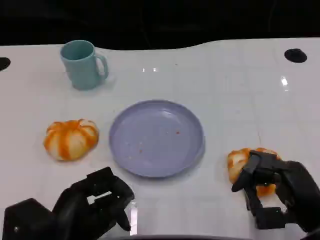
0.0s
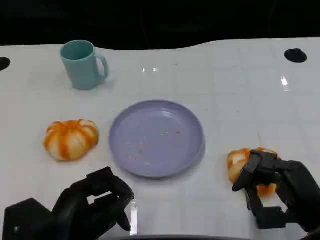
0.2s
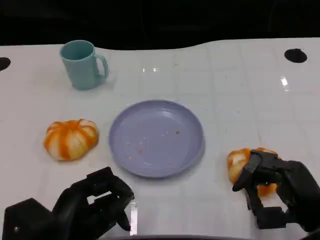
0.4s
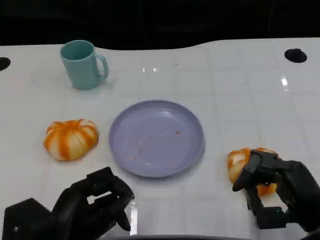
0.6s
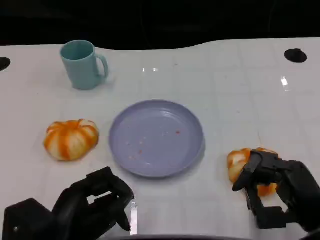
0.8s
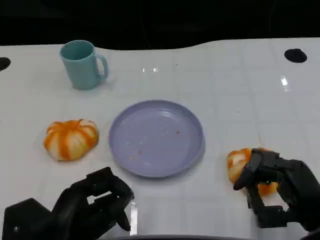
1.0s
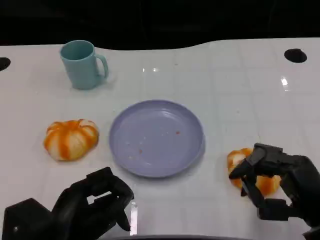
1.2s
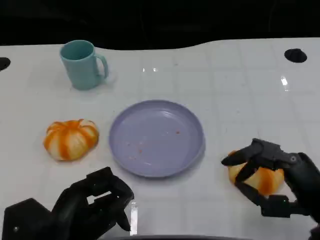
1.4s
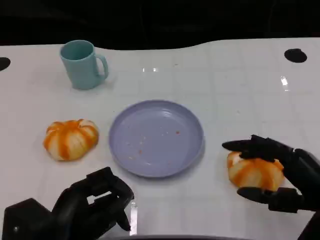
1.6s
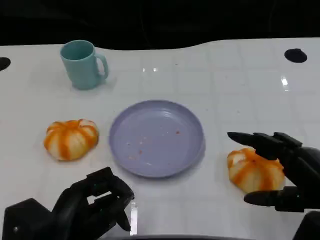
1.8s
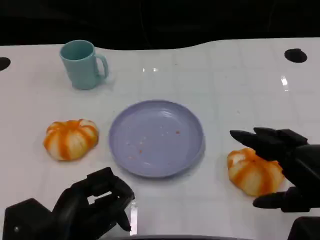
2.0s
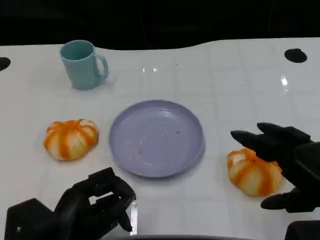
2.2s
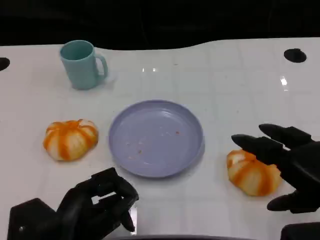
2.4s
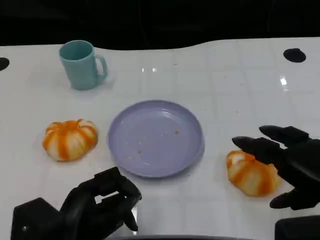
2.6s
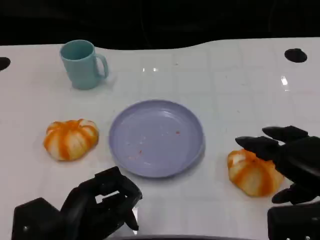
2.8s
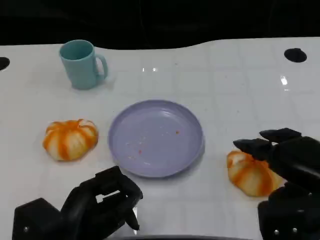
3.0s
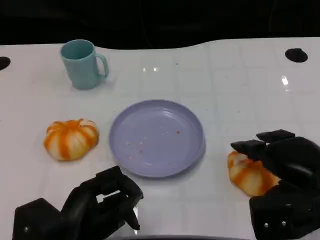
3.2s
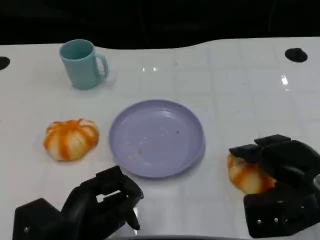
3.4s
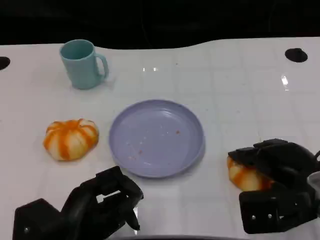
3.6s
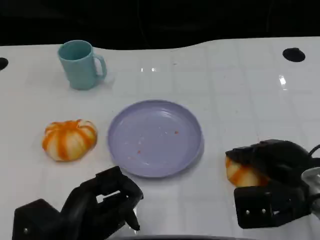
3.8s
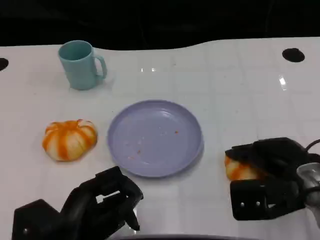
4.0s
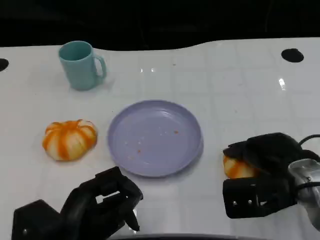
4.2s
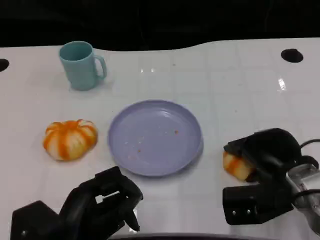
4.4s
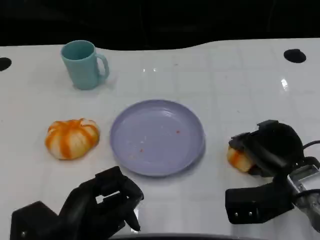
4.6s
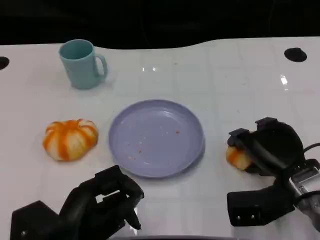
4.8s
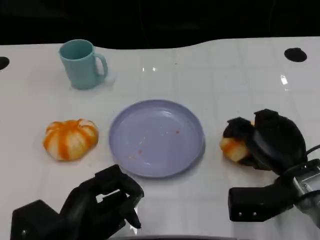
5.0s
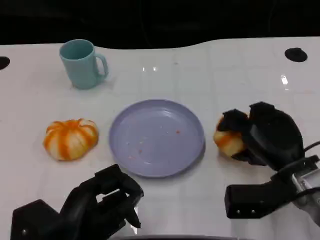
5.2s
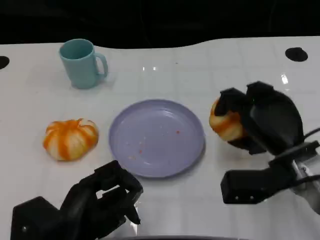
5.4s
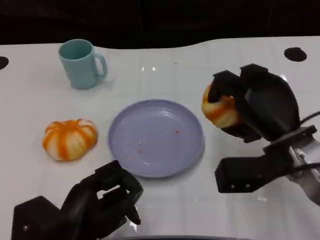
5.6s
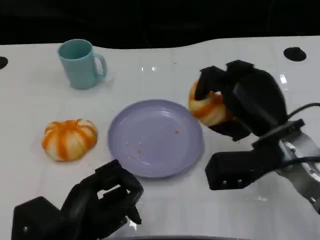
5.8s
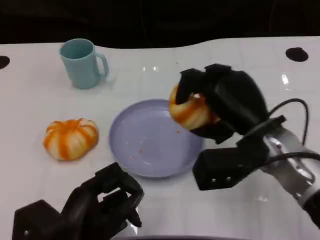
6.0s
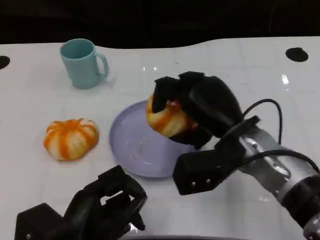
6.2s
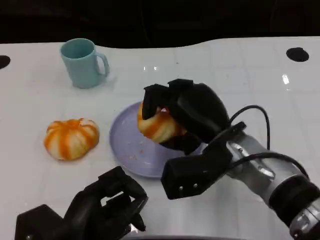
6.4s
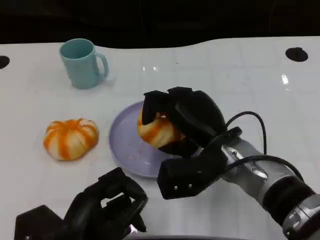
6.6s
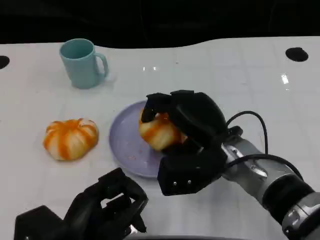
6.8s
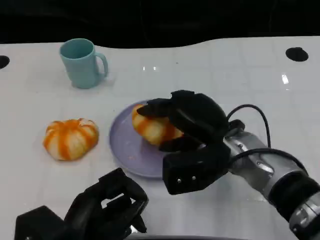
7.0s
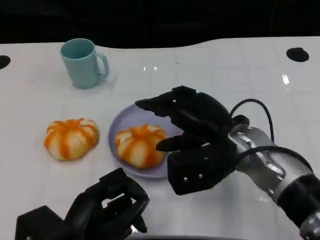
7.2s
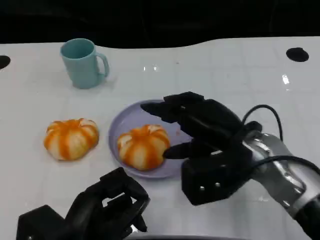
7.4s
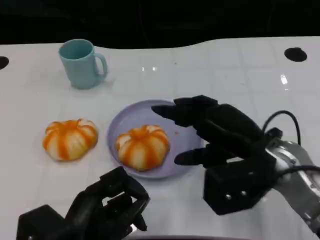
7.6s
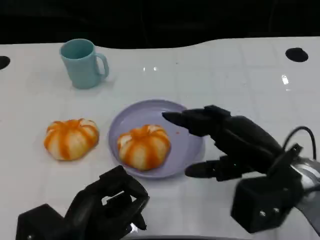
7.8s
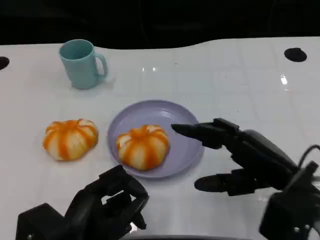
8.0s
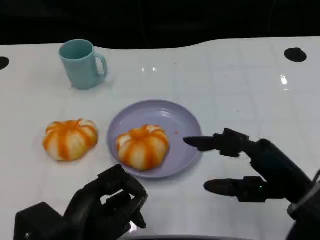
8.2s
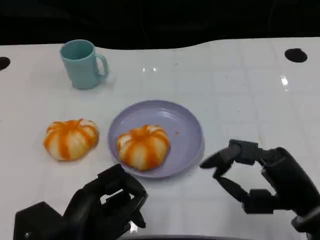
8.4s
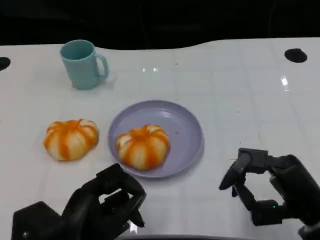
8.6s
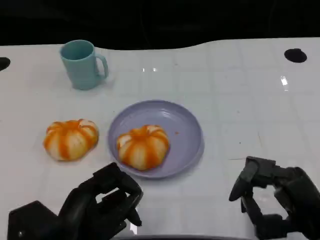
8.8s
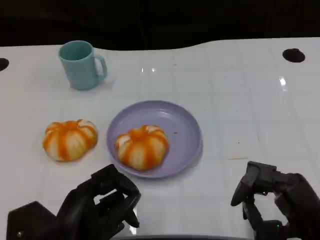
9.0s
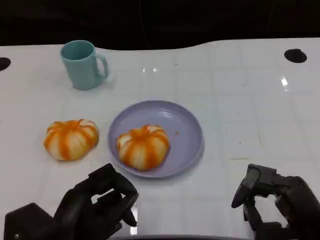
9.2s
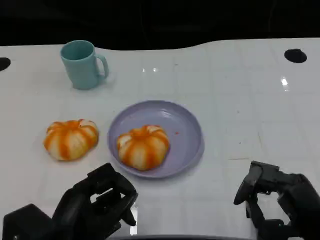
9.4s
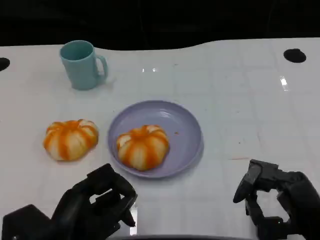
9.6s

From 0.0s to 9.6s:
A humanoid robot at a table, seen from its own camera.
Task of the whole recording: Grasp the bread from the table and place it into the plate.
From 0.0s to 1.6s: The right hand ends up roughly 5 cm from where it was.
From 1.6s to 3.2s: The right hand moves roughly 5 cm.
From 3.2s to 4.8s: The right hand heads downward, covering approximately 5 cm.
From 4.8s to 6.4s: The right hand travels to the left and upward by some 10 cm.
From 6.4s to 8.0s: The right hand is displaced to the right and backward by roughly 10 cm.
From 8.0s to 9.6s: The right hand heads backward, covering roughly 5 cm.

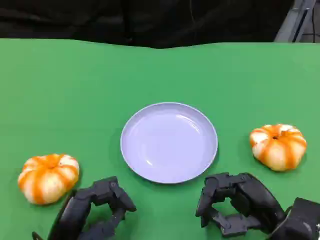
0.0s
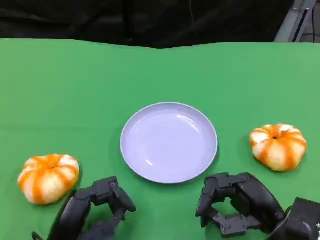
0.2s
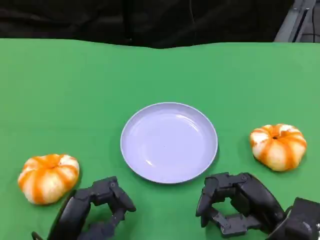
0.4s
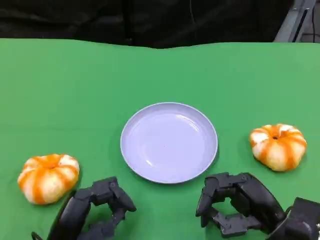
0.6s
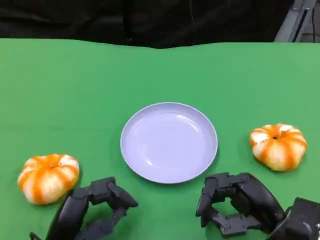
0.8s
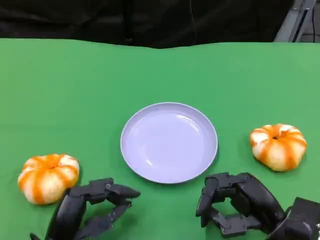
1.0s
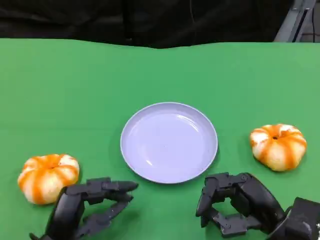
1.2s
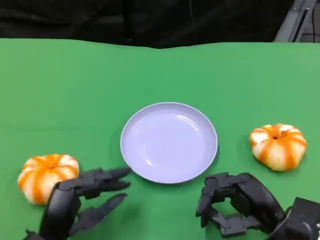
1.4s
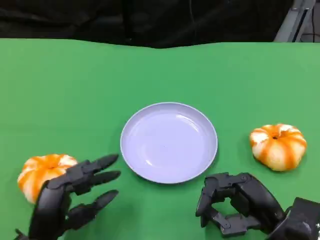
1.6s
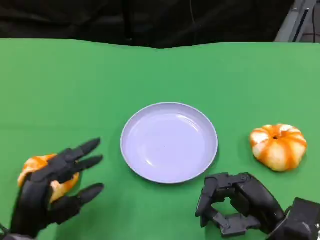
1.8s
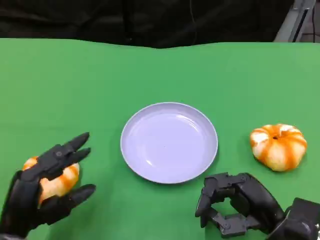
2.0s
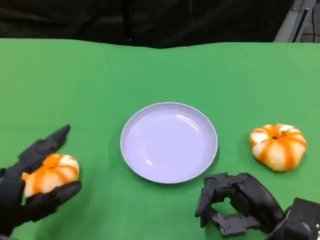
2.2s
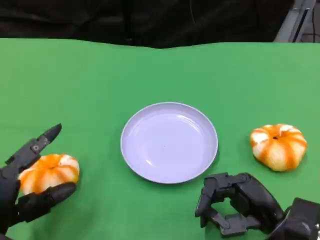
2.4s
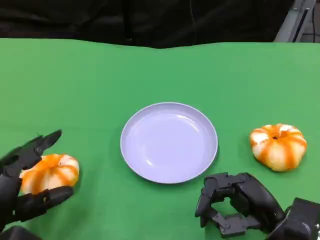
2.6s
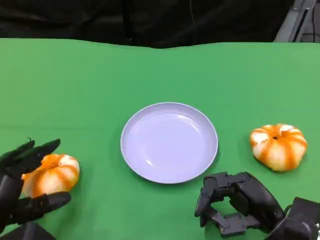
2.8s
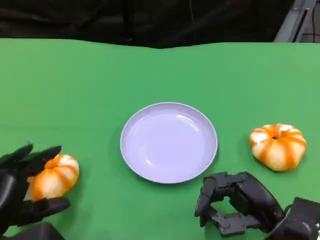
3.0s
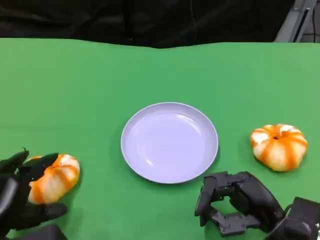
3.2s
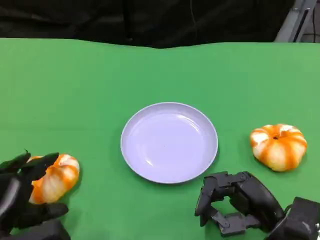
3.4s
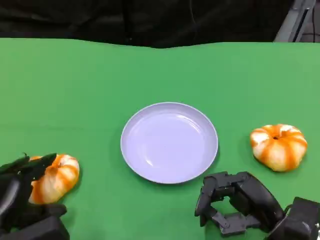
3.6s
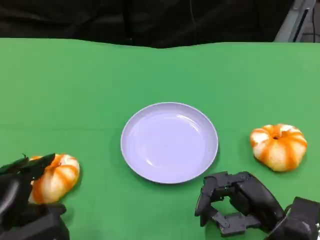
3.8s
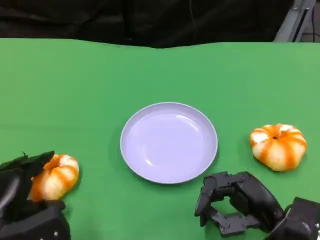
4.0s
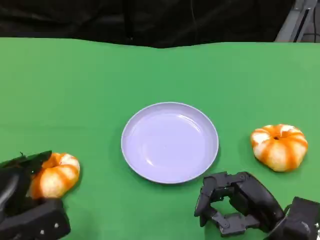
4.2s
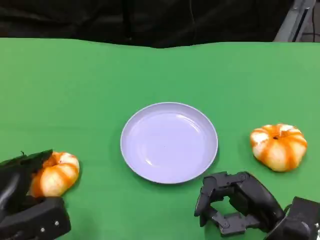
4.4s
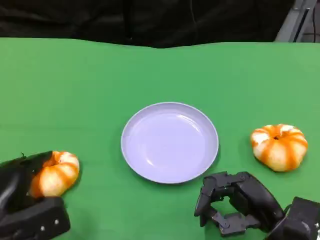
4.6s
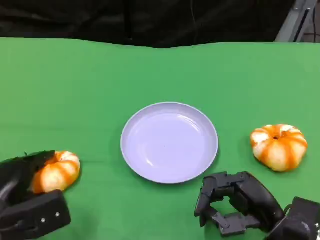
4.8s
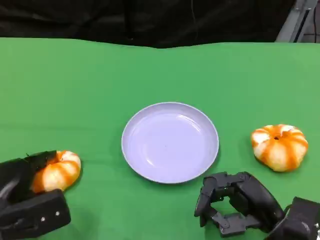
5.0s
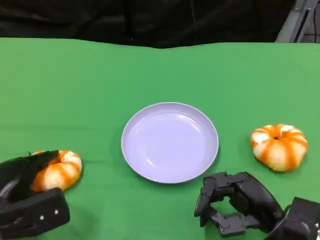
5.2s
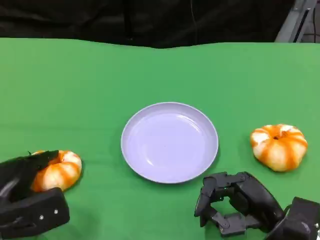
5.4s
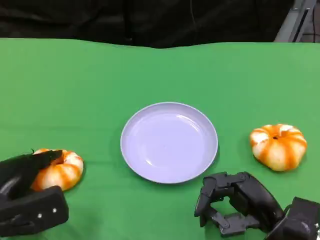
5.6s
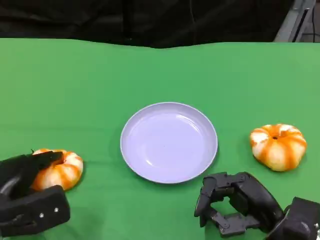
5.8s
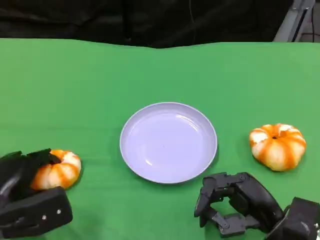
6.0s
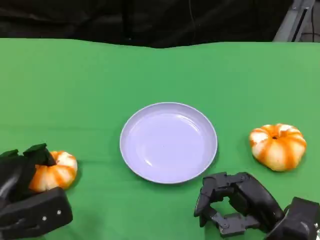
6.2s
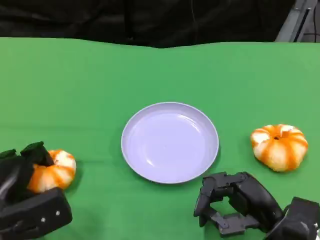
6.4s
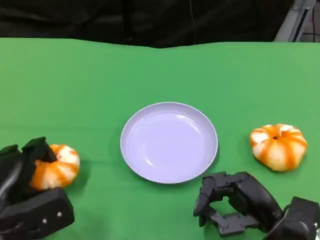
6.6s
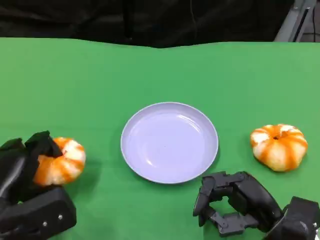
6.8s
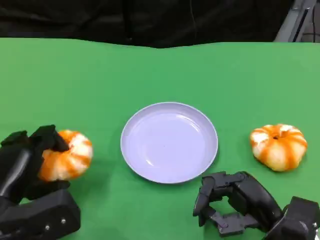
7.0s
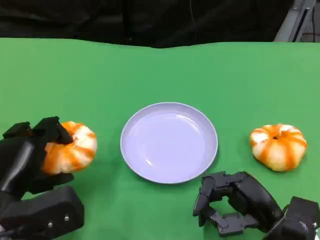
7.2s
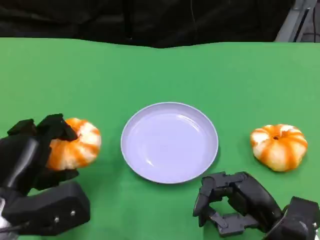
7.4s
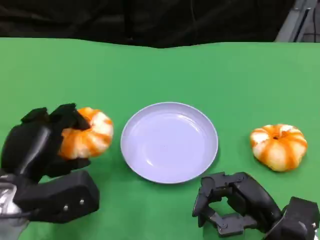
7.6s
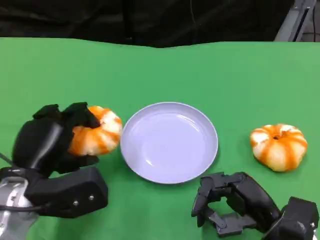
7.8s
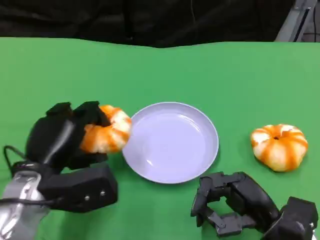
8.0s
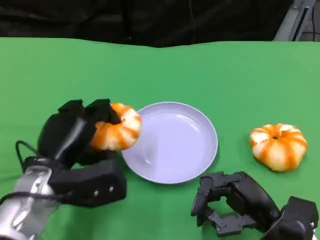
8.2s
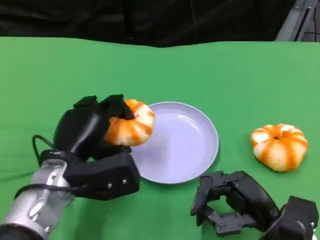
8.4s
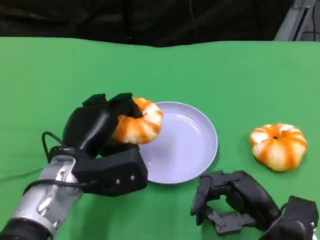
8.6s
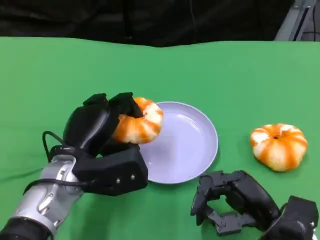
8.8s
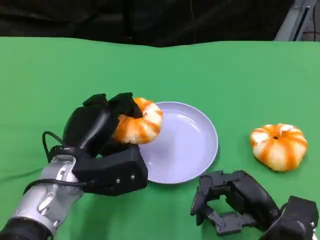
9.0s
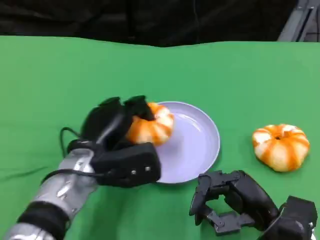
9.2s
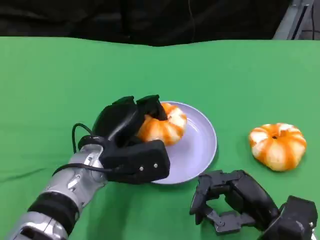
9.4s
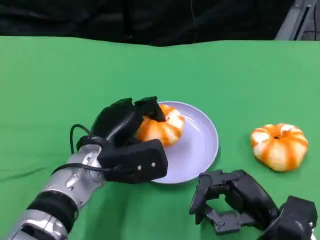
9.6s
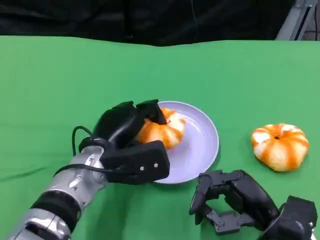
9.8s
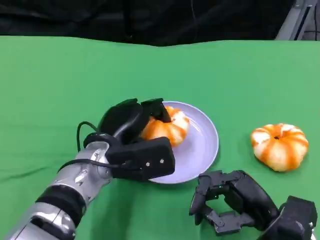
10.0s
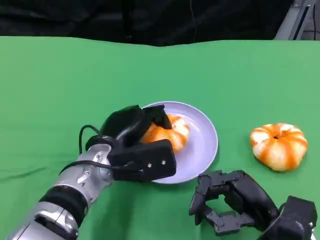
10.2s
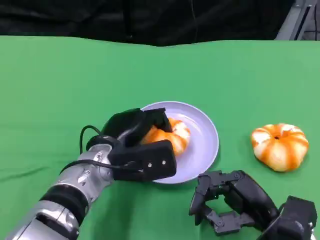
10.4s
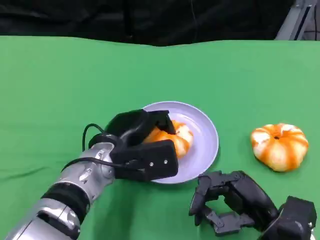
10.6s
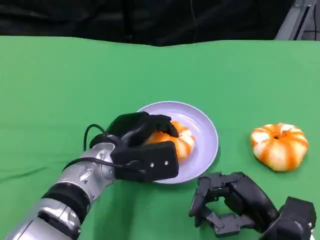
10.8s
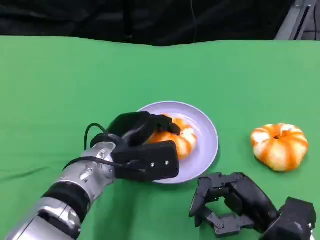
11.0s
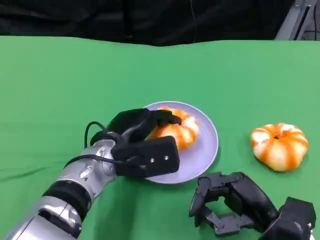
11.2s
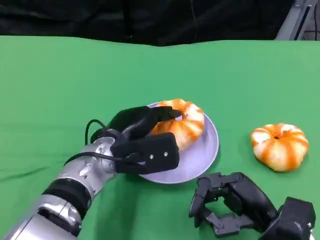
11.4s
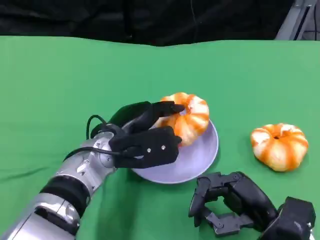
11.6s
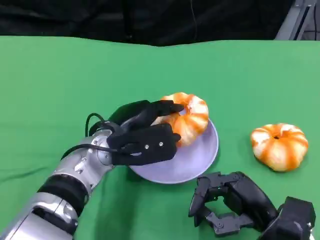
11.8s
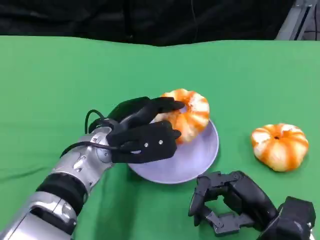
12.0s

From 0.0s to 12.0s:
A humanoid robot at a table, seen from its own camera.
Task of the whole recording: Grasp the bread from the table and place it into the plate.
From 0.0s to 1.6s: There are only small adjustments of the hands.
From 1.6s to 3.0s: The left hand is displaced to the left by some 5 cm.
From 3.0s to 4.4s: The hands make only small movements.
From 4.4s to 6.0s: The hands move only a little.
From 6.0s to 7.6s: The left hand is displaced upward by about 5 cm.
From 7.6s to 9.0s: The left hand moves to the right, roughly 5 cm.
From 9.0s to 10.4s: The left hand ends up roughly 5 cm from where it was.
From 10.4s to 12.0s: The hands make only small movements.

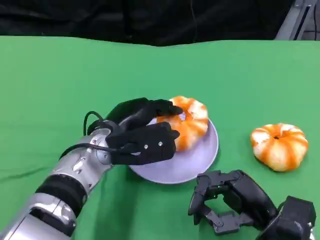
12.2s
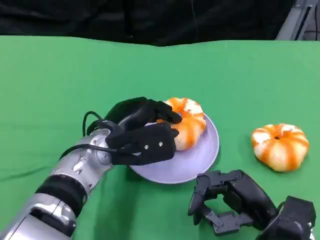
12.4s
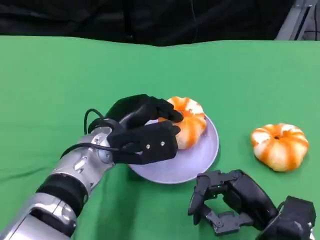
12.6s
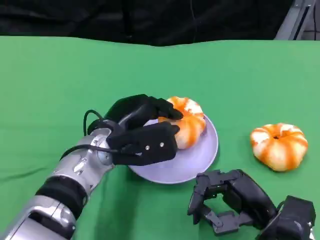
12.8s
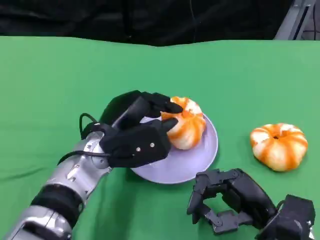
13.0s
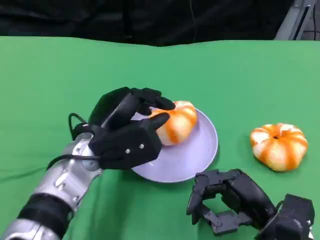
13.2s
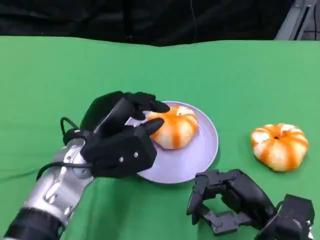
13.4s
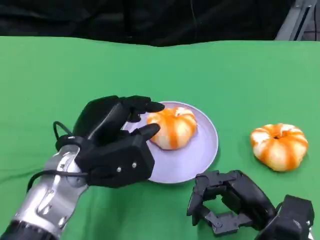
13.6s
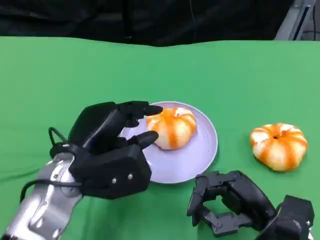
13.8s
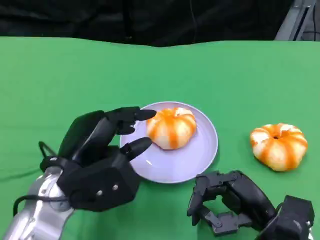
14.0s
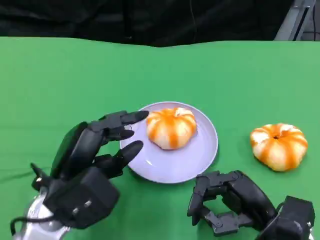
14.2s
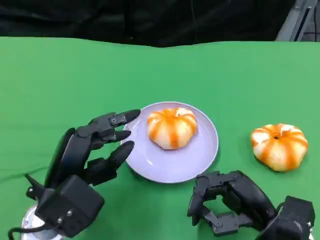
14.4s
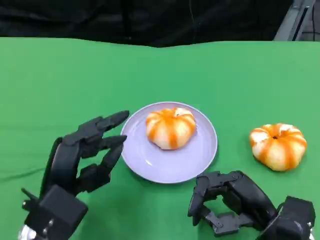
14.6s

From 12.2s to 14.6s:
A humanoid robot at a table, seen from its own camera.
Task of the whole recording: Grasp the bread from the table and place it into the plate.
From 12.2s to 13.4s: The hands move only a little.
From 13.4s to 14.6s: The left hand moves backward, some 5 cm.
